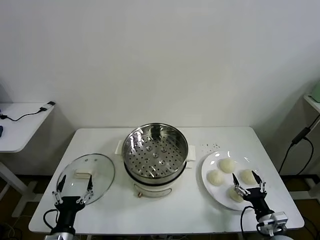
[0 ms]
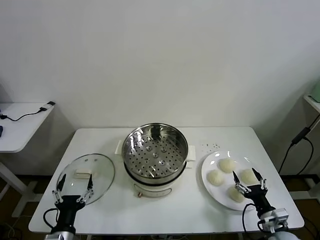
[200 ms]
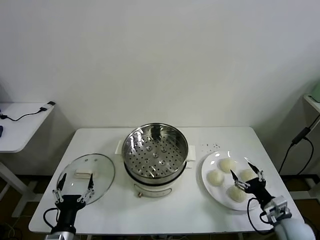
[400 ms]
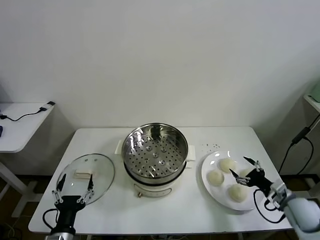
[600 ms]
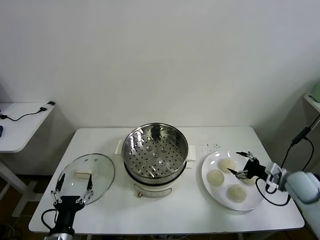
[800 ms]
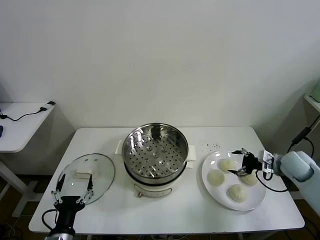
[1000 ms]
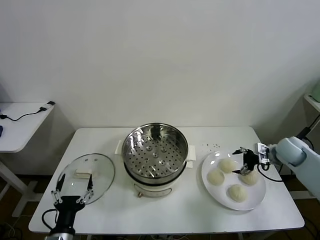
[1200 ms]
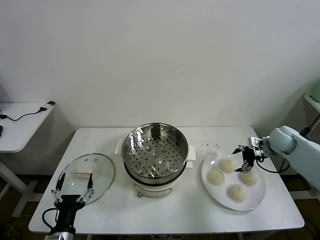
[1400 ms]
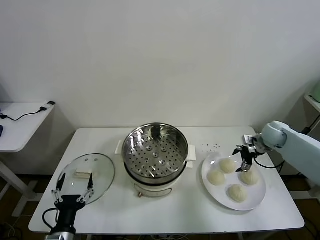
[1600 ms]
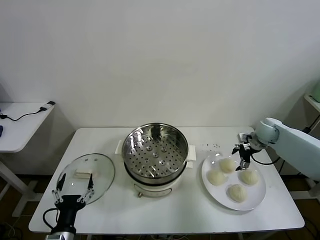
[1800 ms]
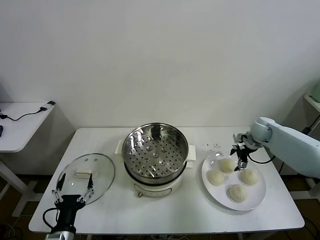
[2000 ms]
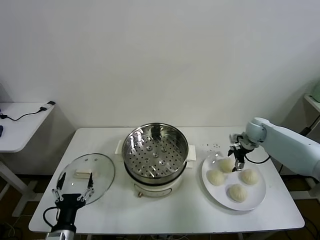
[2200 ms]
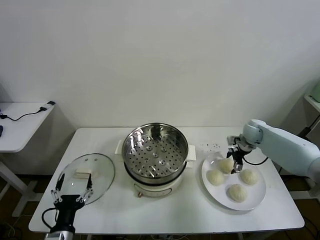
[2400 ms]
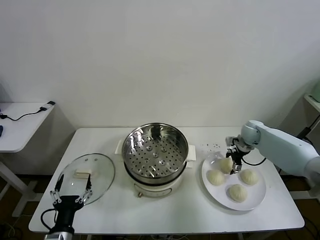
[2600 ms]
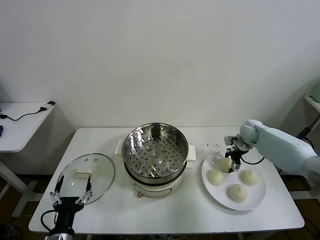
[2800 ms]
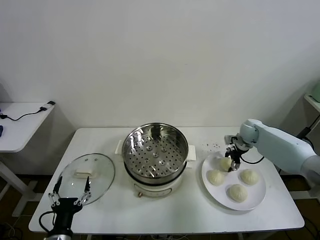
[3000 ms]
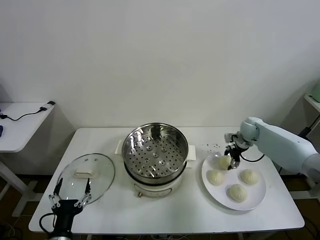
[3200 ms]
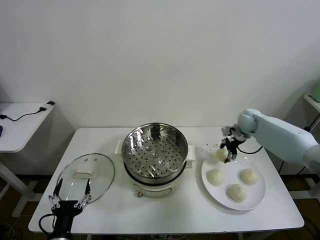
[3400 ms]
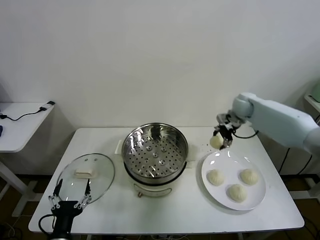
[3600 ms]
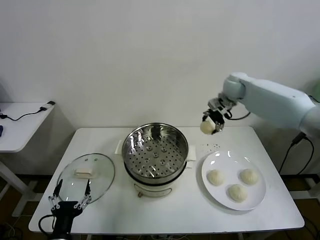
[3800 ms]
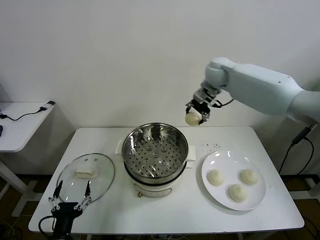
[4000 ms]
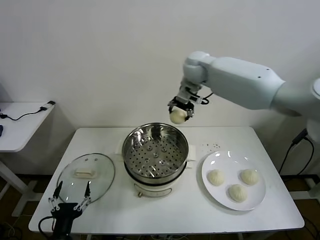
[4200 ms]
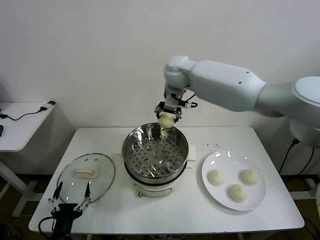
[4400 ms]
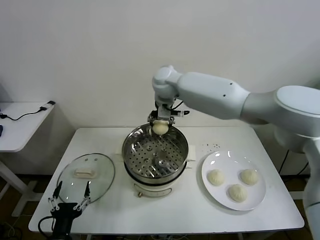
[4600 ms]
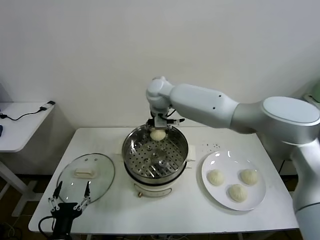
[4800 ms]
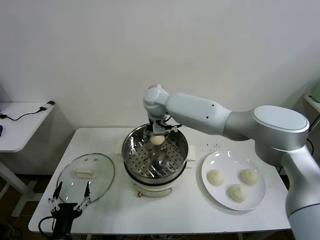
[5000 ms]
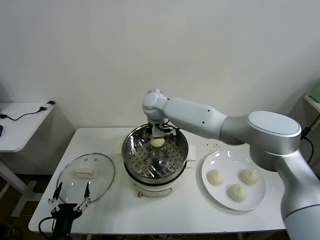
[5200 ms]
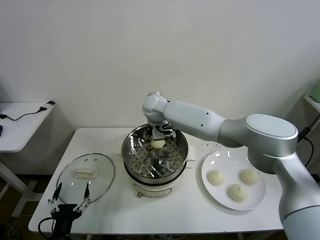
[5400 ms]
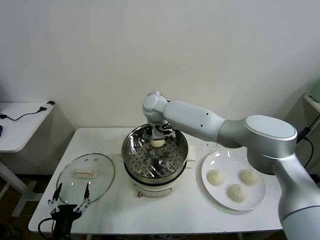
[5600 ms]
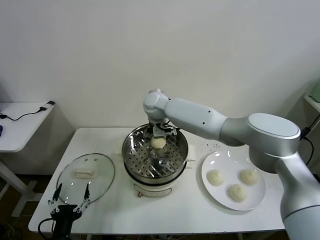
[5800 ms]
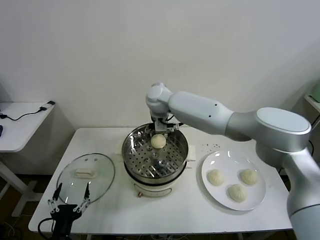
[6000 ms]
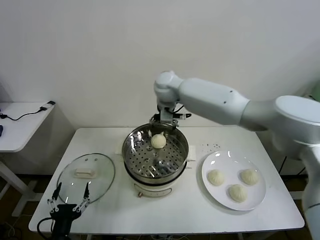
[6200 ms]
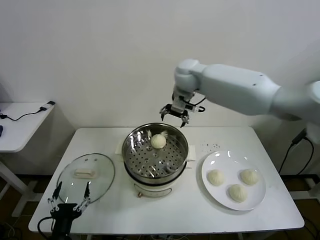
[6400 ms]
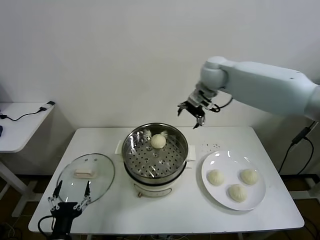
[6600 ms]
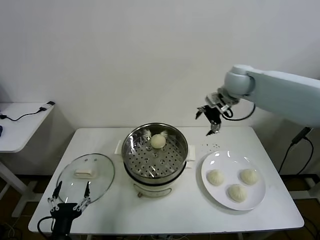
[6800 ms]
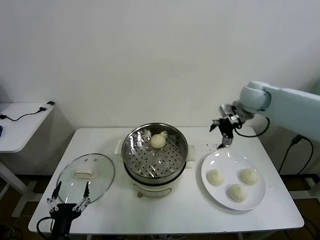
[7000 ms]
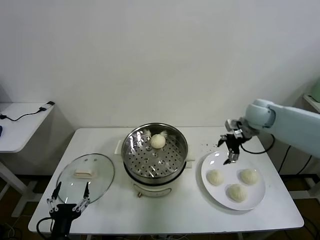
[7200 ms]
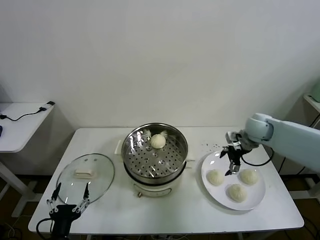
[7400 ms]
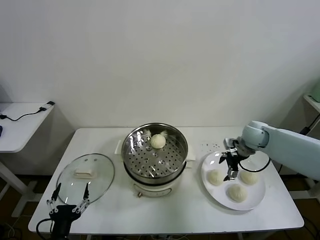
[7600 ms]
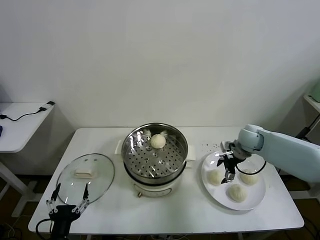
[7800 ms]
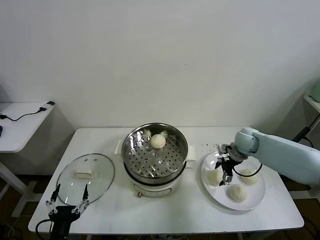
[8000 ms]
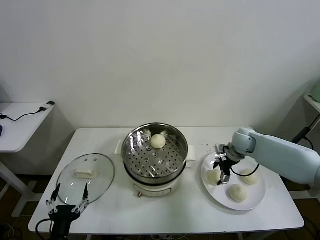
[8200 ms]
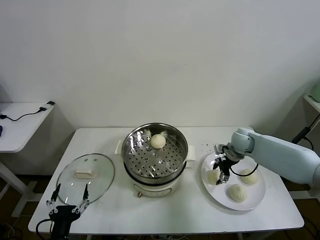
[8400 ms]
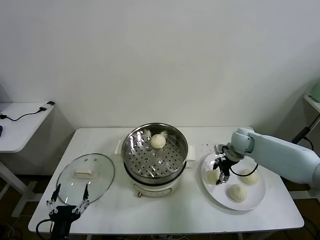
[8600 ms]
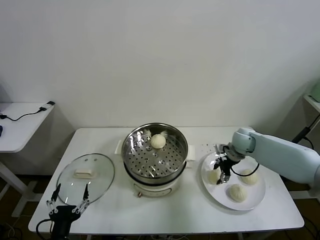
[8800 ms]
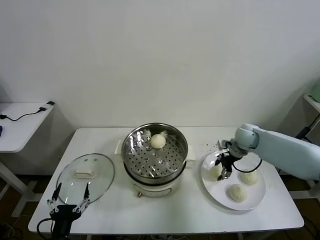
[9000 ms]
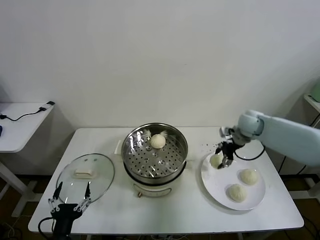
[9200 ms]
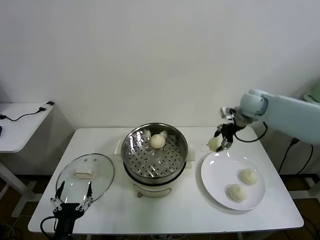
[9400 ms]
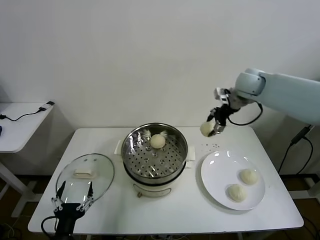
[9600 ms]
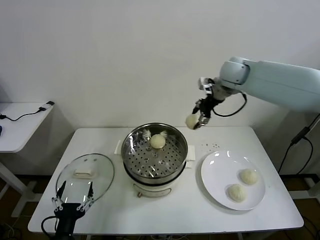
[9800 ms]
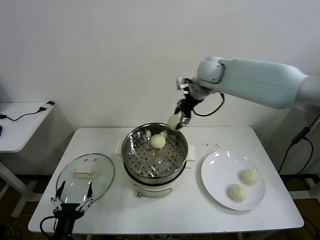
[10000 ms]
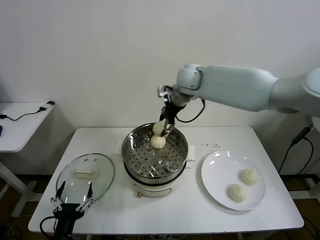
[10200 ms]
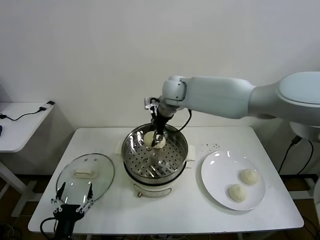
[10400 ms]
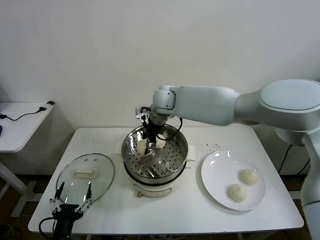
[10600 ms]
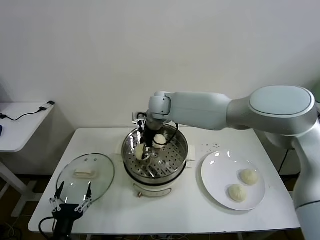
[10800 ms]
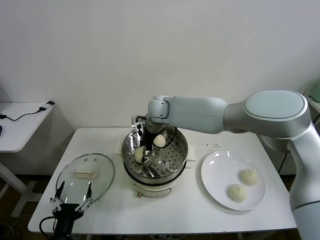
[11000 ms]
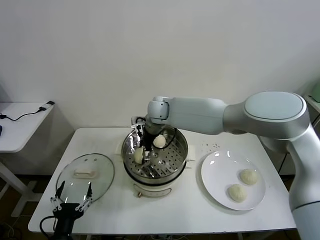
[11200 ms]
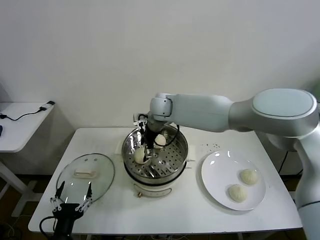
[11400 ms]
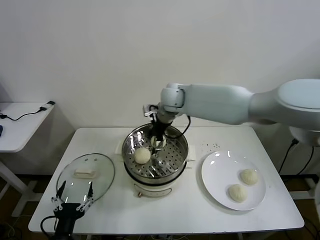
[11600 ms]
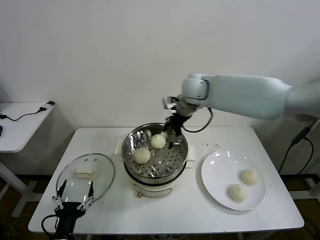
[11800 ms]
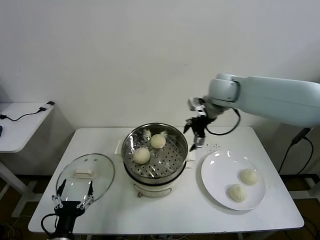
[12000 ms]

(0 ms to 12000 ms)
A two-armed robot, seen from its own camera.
Task of the whole recording: take steamed baozi put them in steamer then cover it.
Step, 0 ms - 3000 ms: Grasp the baozi in the plate with right gripper.
Step, 3200 ms - 6200 ms: Place the baozi on the steamer with right gripper.
Step, 6400 ms - 8400 ms: Grasp the baozi in the plate with right gripper.
Step, 8600 ms - 11400 ms: Place the baozi on the steamer with right gripper.
1600 ms - 3000 ms: The right gripper moves about 5 cm, and closes its fingers.
3000 ms - 4400 ms: The right gripper travels to the left and upward by some 40 cm.
4400 ms - 6000 ms: The right gripper is displaced downward by approximately 5 cm, and opens.
6000 ms - 7600 ms: The right gripper goes roughly 35 cm to the right and downward.
7600 ms - 9000 ms: The right gripper closes up.
9000 ms - 10400 ms: The right gripper heads to the left and upward, covering about 35 cm.
10400 ms - 12000 ms: The right gripper goes some 20 cm to the right, and opens up.

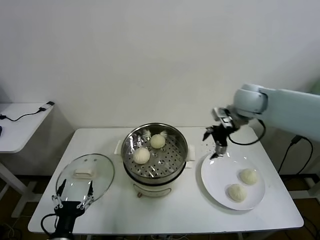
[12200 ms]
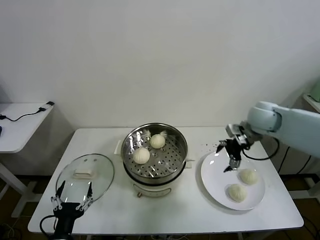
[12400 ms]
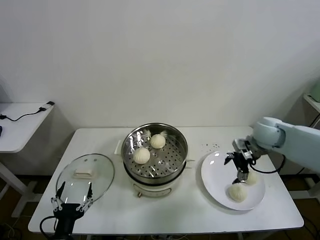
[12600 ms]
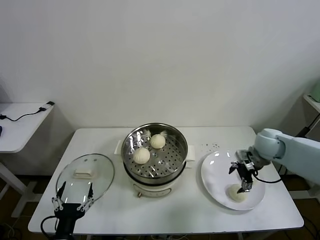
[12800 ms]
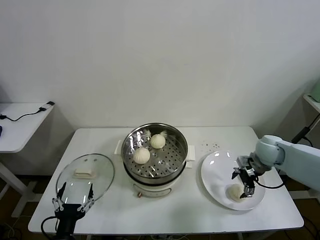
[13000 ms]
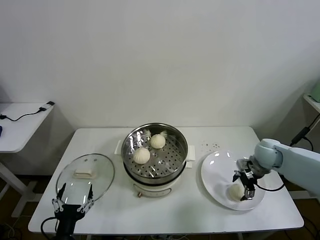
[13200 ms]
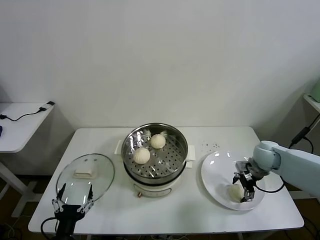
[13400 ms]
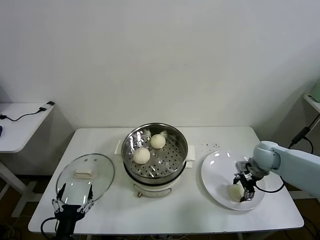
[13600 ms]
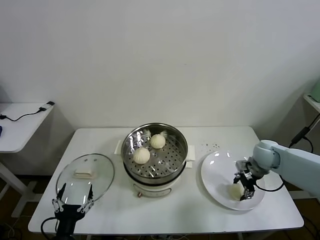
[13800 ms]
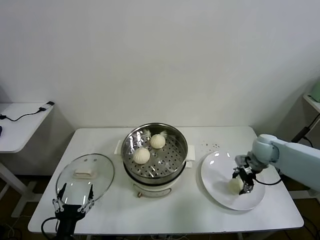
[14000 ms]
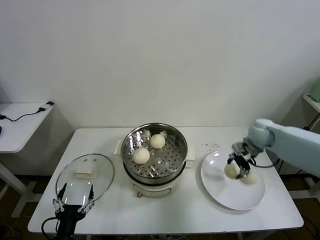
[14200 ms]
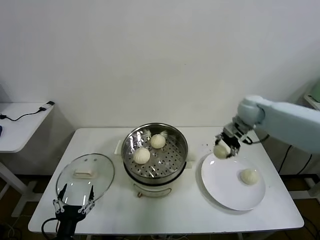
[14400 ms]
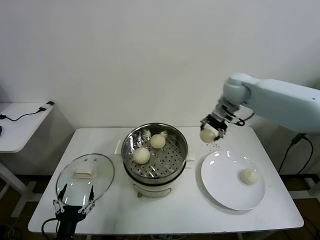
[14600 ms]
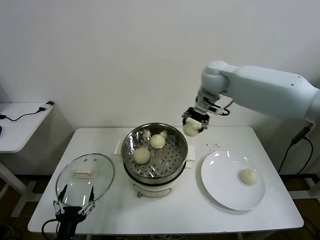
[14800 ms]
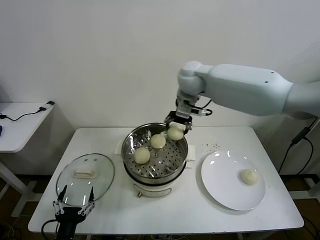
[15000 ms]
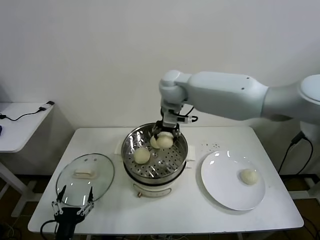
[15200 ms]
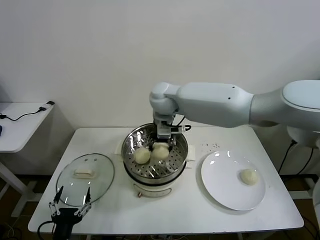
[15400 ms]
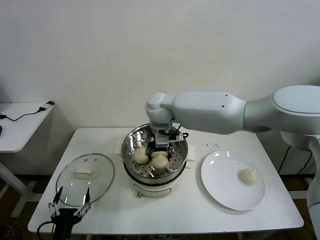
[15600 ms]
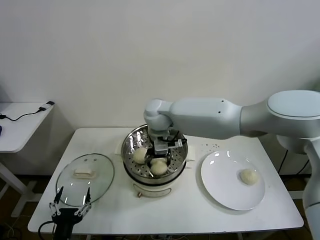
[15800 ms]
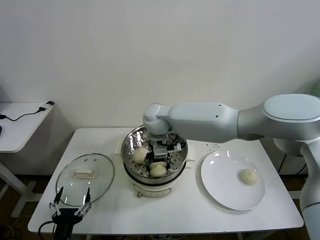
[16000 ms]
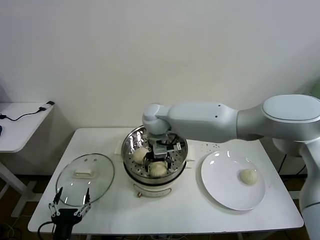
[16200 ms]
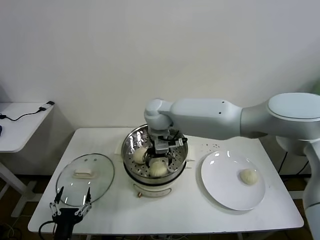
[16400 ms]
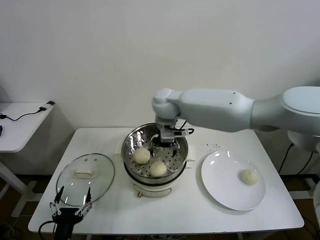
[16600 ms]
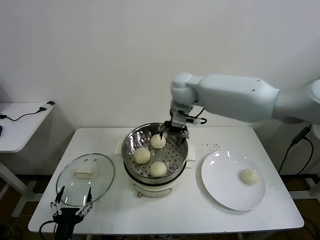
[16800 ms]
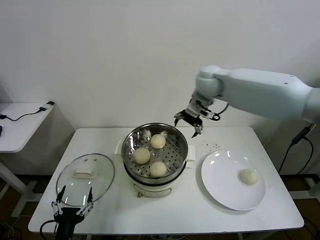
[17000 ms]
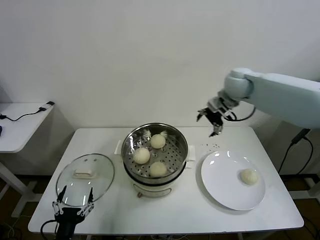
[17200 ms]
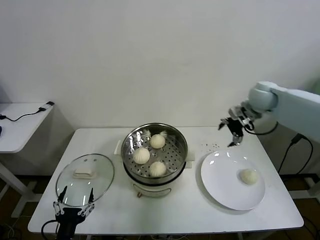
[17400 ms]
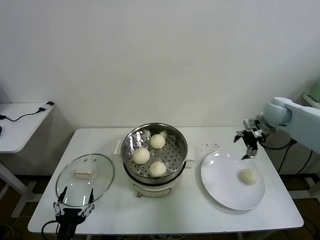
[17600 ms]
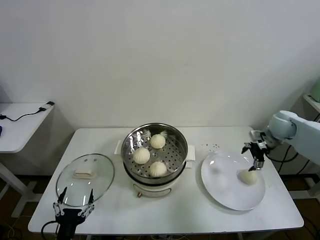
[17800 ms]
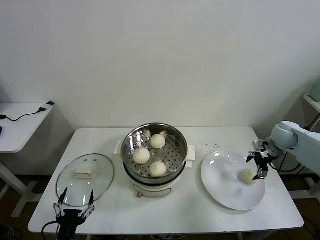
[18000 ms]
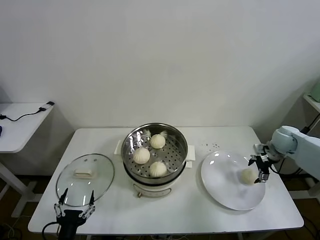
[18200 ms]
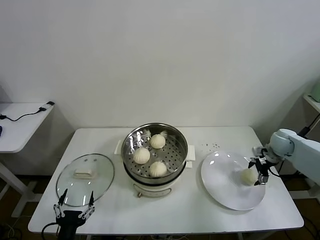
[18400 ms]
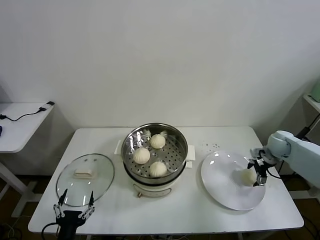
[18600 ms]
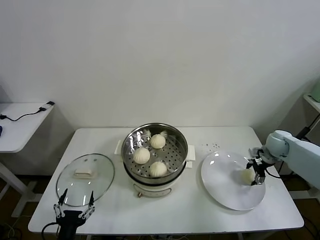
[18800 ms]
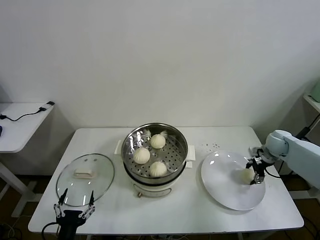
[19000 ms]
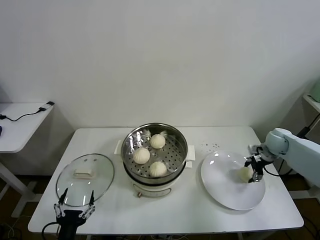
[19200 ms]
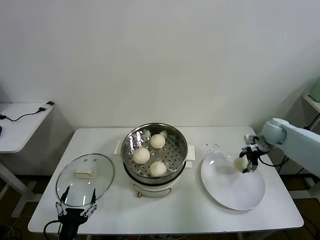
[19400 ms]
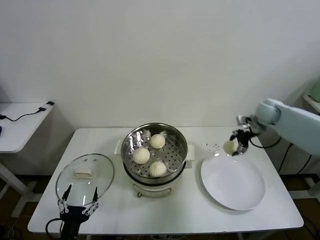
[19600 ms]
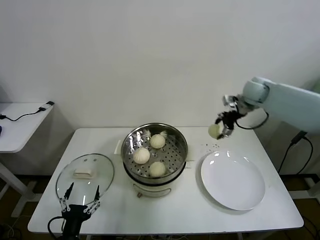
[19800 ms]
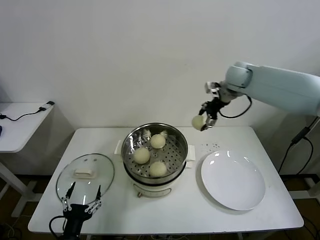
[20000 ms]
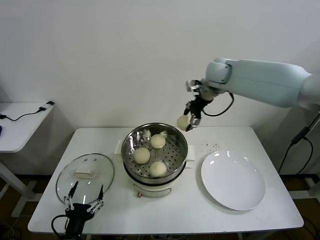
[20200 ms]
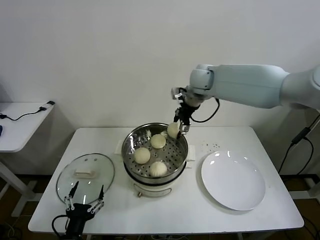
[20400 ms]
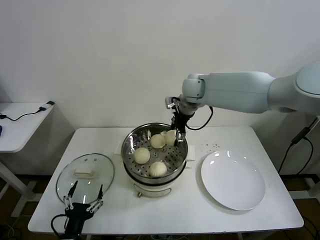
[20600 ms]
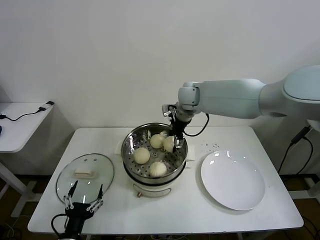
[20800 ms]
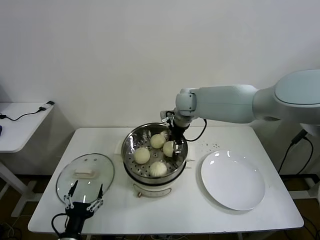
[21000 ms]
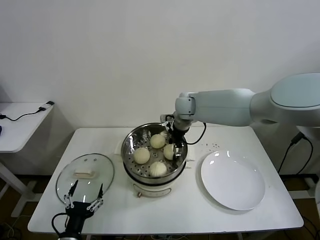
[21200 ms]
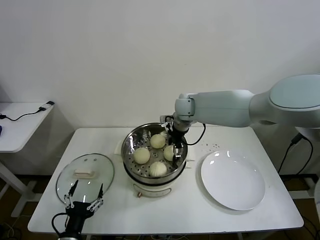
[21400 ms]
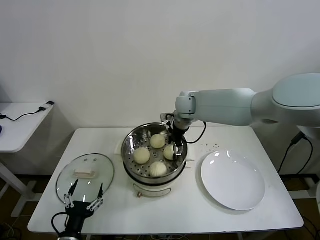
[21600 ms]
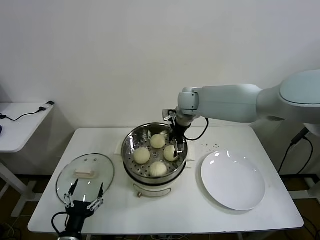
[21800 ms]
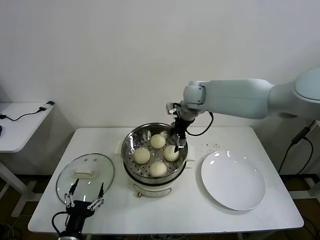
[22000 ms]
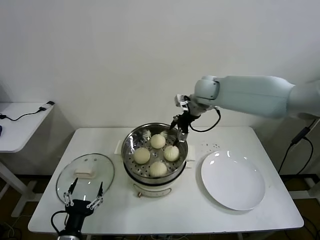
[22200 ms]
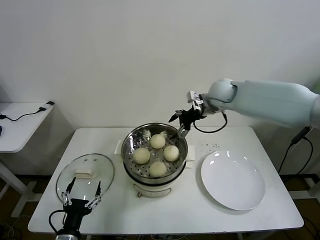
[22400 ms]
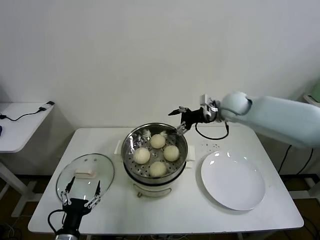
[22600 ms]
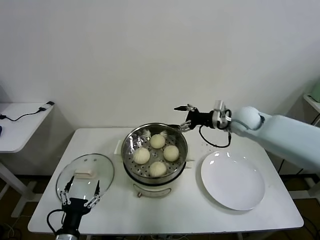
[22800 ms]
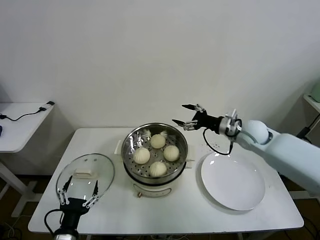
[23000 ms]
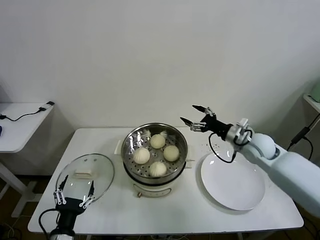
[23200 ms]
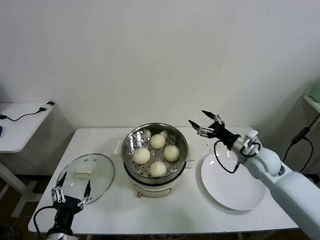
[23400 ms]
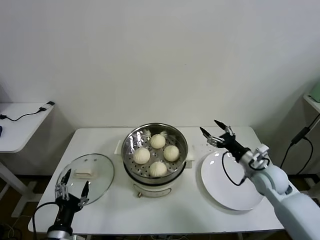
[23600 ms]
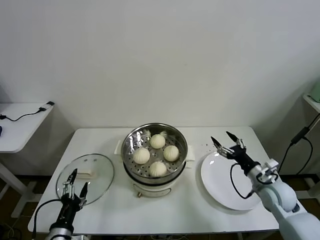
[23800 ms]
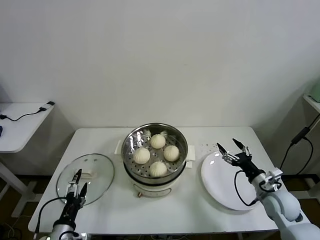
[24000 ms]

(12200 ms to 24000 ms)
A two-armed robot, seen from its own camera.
Task of the whole recording: take steamed baozi put them in steamer then cover it.
Step, 12200 ms - 13800 ms: Grasp the baozi in the plate with right gripper.
Step, 14000 ms - 16600 ms: Place the baozi on the steamer with right gripper.
Step, 17000 ms - 19000 ms: Grasp the baozi in the plate with right gripper.
Step, 19200 ms - 21600 ms: Place the baozi on the steamer with right gripper.
12200 ms - 13600 ms: The right gripper is displaced downward and to the right by some 20 cm, and closes.
13600 ms - 15200 ms: The right gripper travels to the left and upward by some 40 cm.
15200 ms - 16600 ms: The right gripper opens its fingers.
16600 ms - 18200 ms: The right gripper moves to the right, some 40 cm.
18200 ms - 19600 ms: The right gripper shifts approximately 10 cm upward, forward and to the left, and closes up.
19600 ms - 21000 ms: The right gripper moves to the left, roughly 30 cm.
21000 ms - 22600 ms: The right gripper moves to the right, roughly 15 cm, and opens its fingers.
22600 ms - 24000 ms: The right gripper goes approximately 35 cm backward, downward and to the right.
